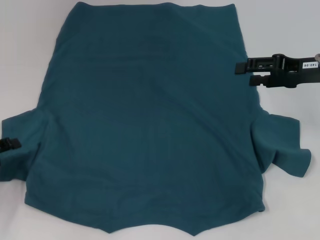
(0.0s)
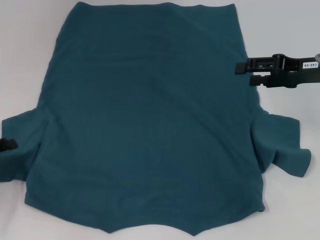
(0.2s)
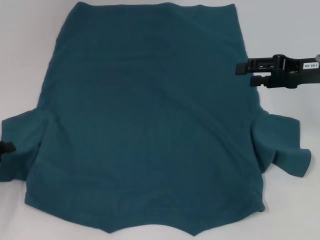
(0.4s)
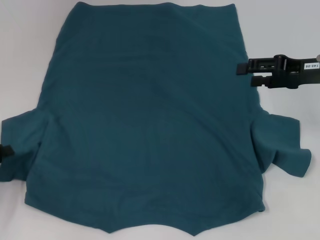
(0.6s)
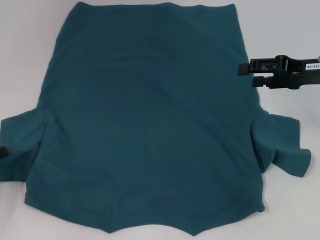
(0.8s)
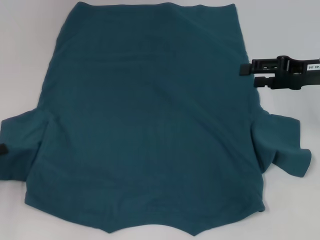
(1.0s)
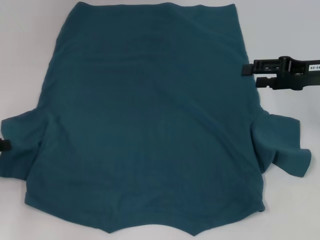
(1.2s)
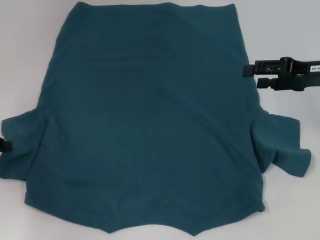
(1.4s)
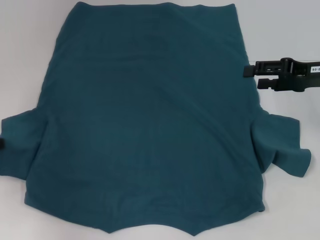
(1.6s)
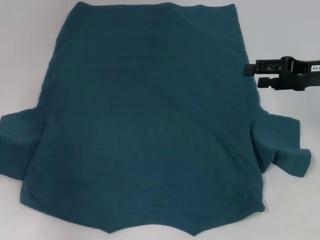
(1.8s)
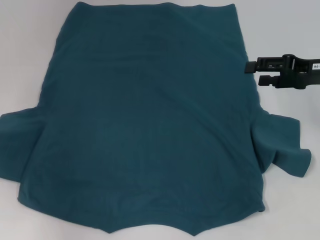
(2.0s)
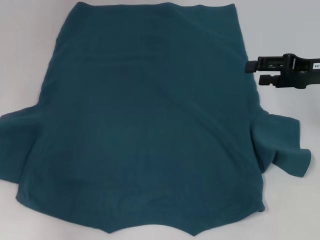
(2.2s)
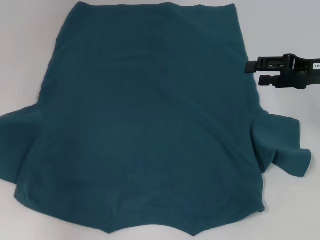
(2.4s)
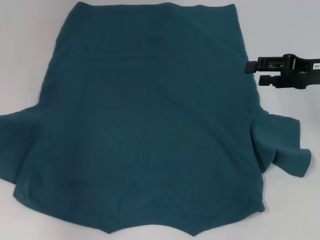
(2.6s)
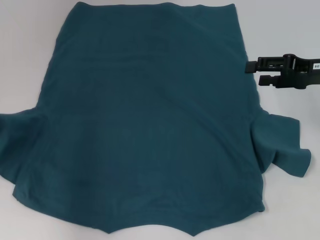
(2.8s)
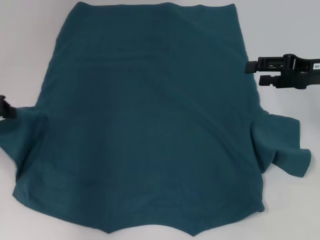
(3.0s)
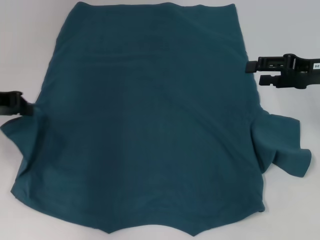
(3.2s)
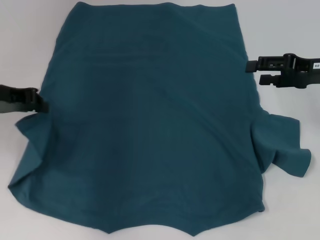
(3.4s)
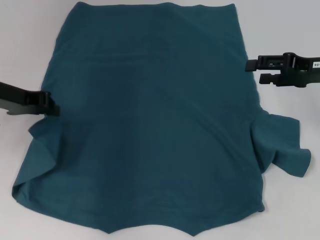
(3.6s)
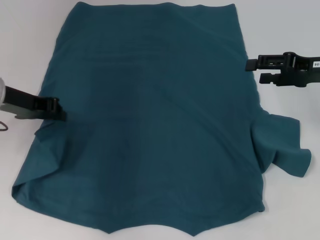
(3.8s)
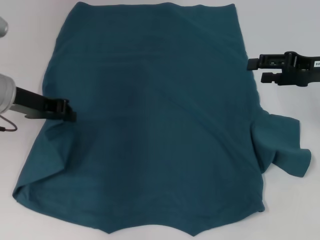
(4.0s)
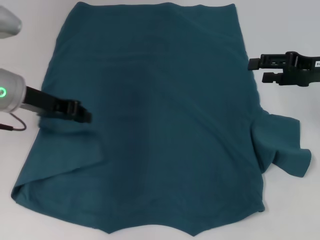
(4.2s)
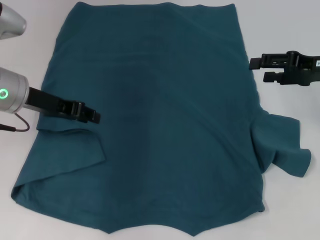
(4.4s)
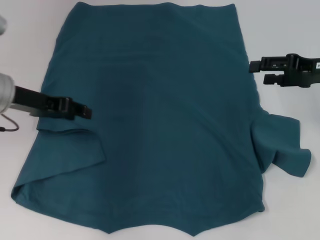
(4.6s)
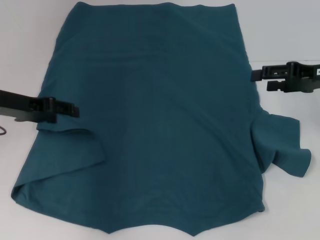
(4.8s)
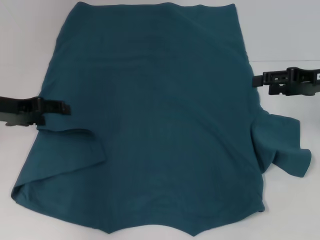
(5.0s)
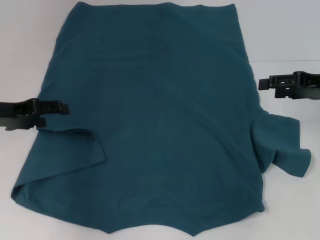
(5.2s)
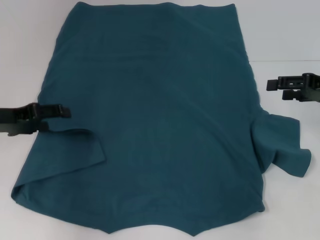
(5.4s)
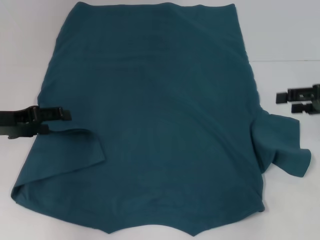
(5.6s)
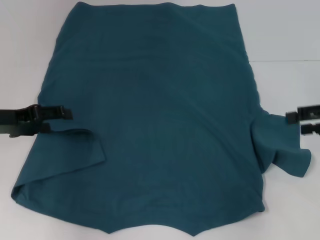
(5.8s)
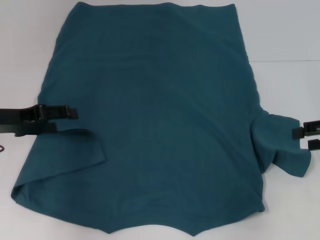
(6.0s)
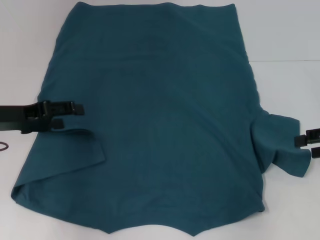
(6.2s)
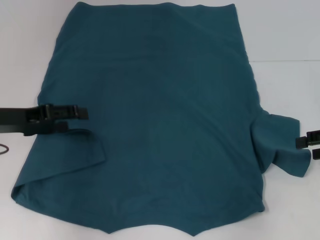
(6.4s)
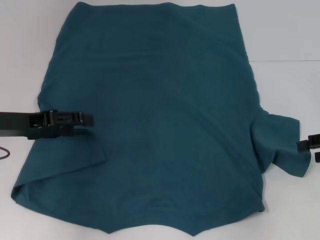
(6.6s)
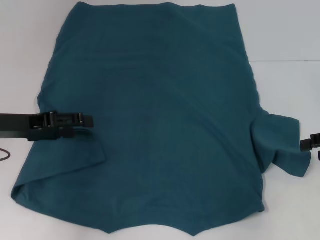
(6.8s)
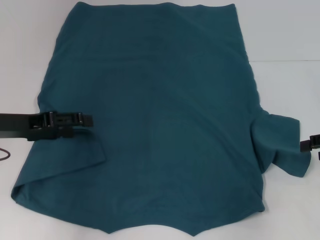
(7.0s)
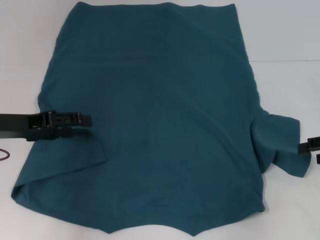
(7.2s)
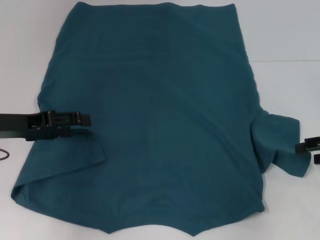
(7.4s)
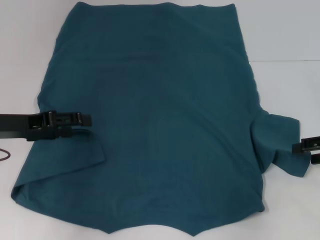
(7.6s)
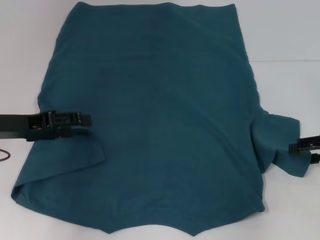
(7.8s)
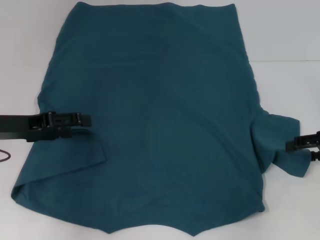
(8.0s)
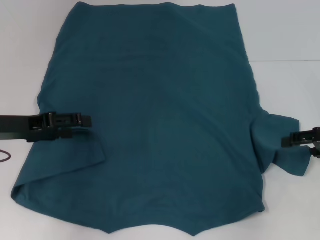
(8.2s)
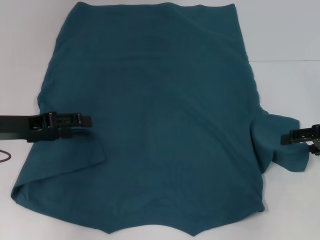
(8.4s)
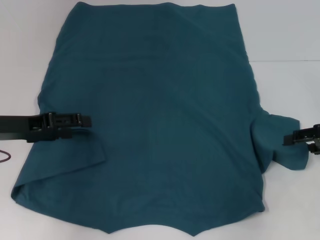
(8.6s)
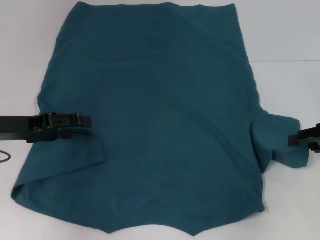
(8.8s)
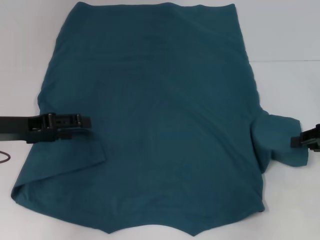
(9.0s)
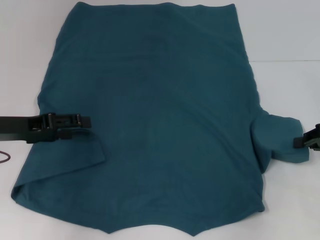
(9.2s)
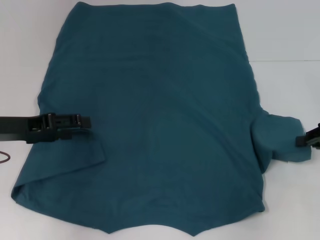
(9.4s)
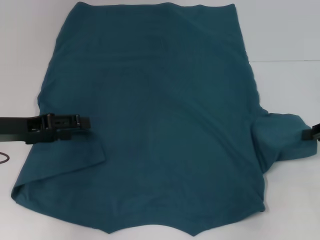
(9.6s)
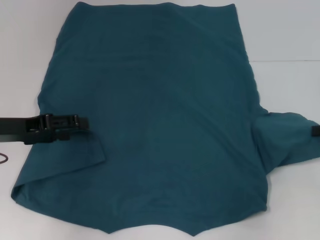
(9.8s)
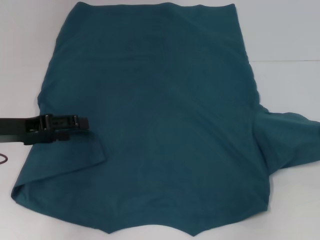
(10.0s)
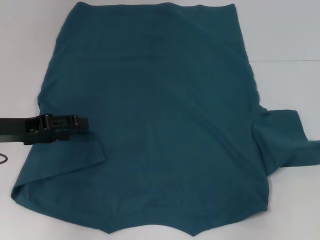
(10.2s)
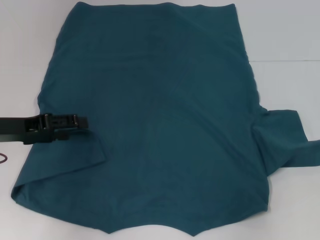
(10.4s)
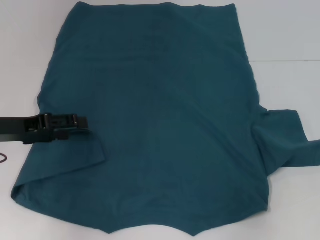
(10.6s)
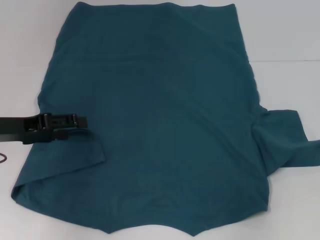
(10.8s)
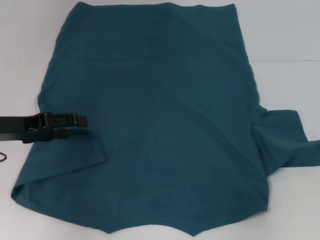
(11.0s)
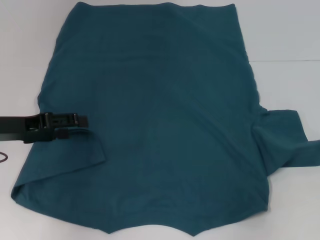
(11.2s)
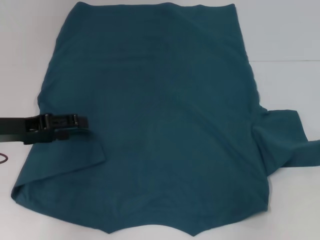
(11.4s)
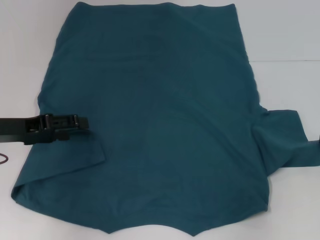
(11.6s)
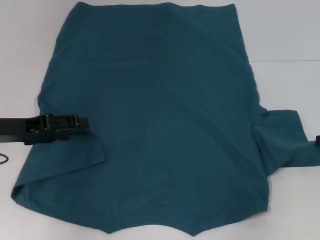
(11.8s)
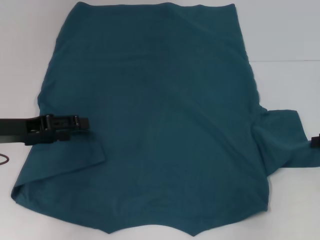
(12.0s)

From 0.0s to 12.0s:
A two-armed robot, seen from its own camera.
Step, from 0.0s to 5.2s: Fold the bottom left sleeve with your left hand.
From 0.0s to 1.6s: The left gripper is displaced upward and forward by some 10 cm, and closes its fingers.
From 1.6s to 3.0s: The left gripper shifts roughly 5 cm upward.
From 3.0s to 4.4s: The left gripper heads to the right, covering about 10 cm.
From 4.4s to 6.0s: The right gripper goes approximately 10 cm to the right and backward, while the left gripper heads to the left, covering some 5 cm, and opens.
From 6.0s to 9.0s: The grippers make only small movements.
From 9.0s to 10.4s: The right gripper changes place by roughly 5 cm, and closes up.

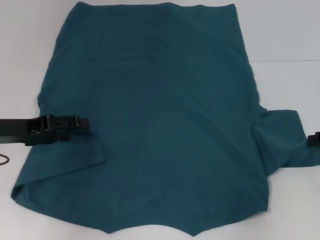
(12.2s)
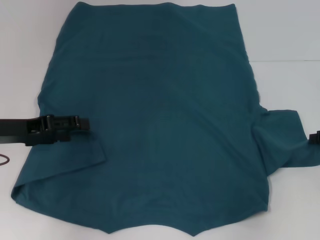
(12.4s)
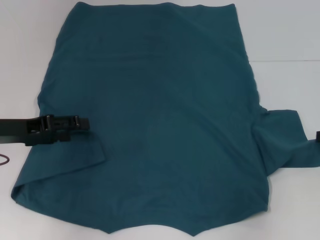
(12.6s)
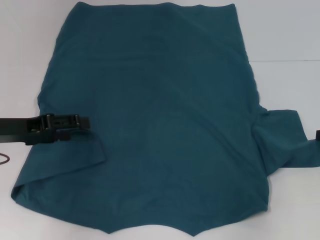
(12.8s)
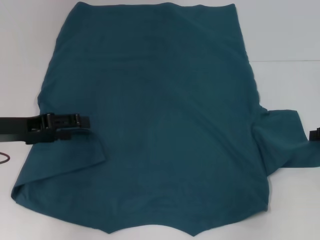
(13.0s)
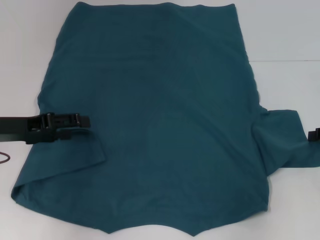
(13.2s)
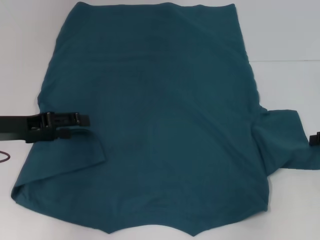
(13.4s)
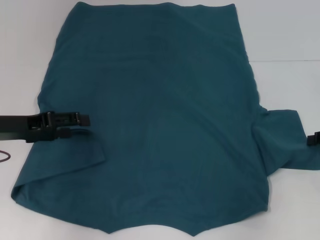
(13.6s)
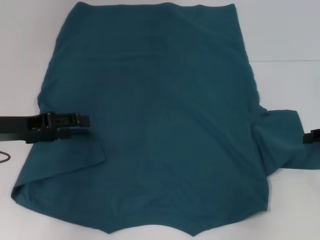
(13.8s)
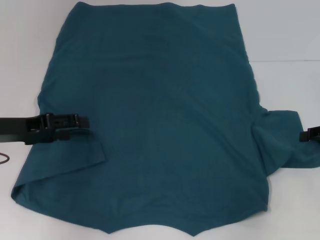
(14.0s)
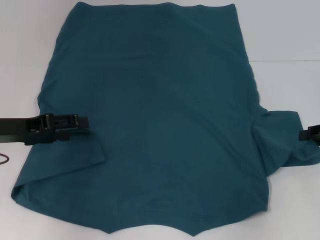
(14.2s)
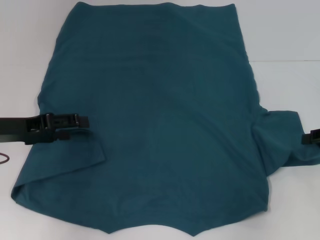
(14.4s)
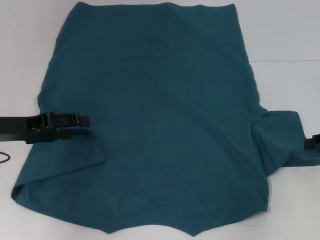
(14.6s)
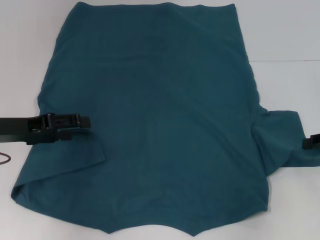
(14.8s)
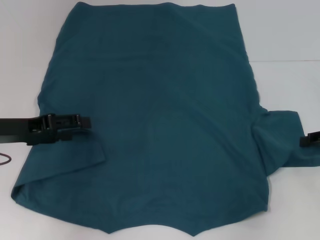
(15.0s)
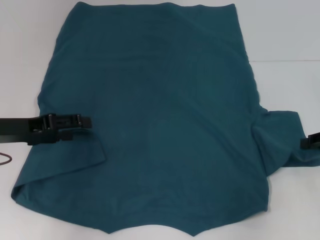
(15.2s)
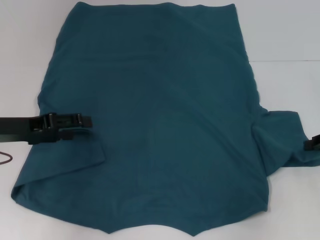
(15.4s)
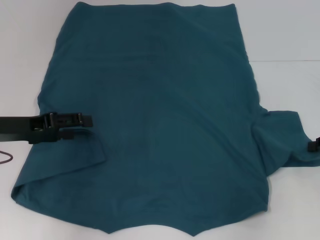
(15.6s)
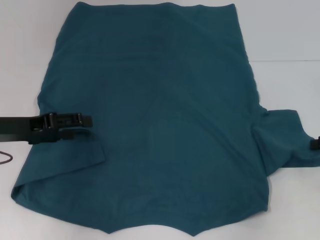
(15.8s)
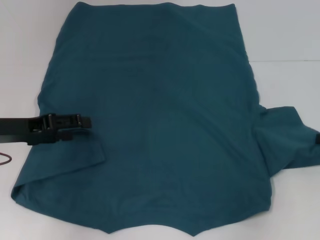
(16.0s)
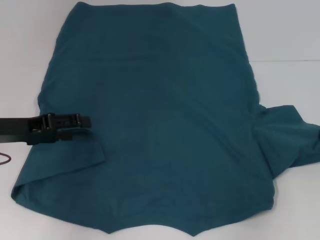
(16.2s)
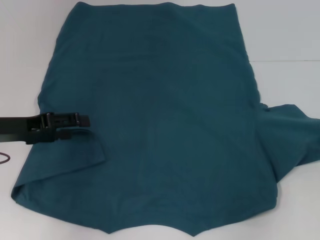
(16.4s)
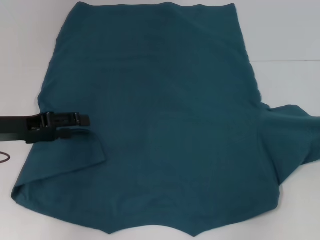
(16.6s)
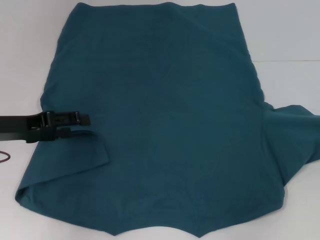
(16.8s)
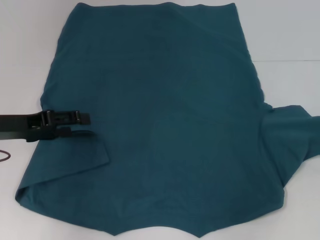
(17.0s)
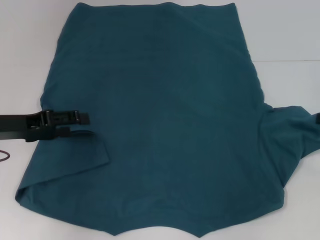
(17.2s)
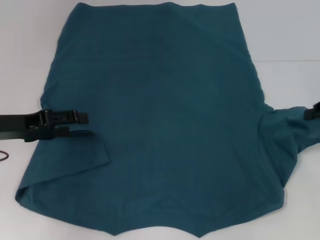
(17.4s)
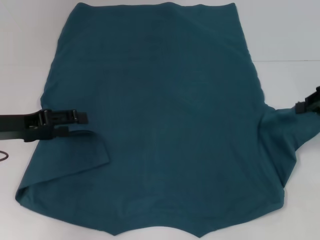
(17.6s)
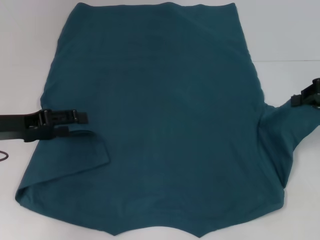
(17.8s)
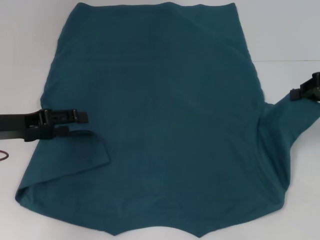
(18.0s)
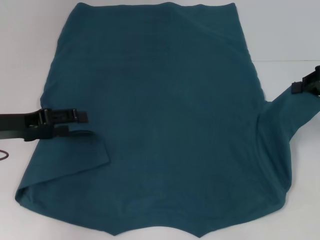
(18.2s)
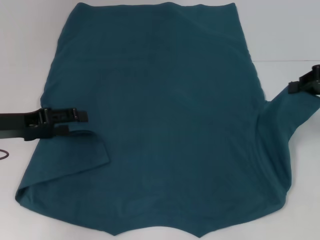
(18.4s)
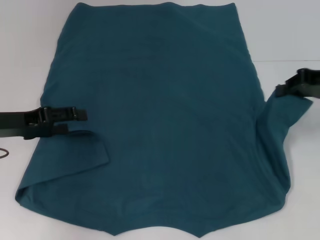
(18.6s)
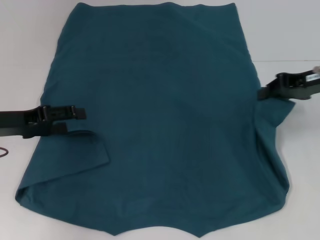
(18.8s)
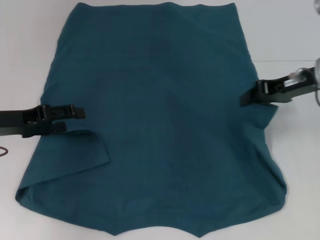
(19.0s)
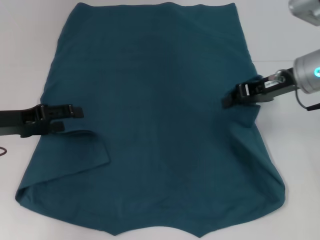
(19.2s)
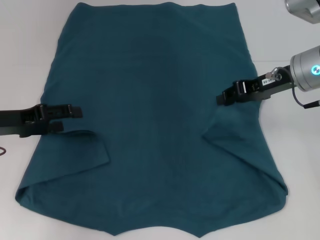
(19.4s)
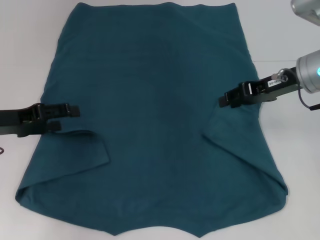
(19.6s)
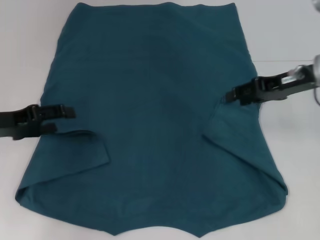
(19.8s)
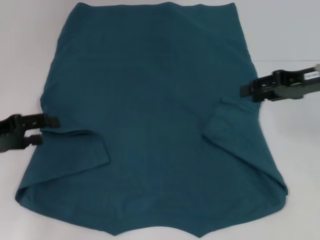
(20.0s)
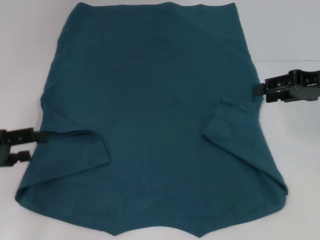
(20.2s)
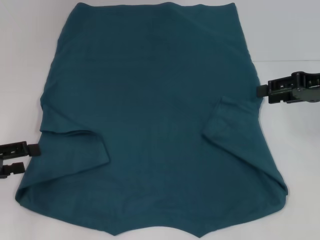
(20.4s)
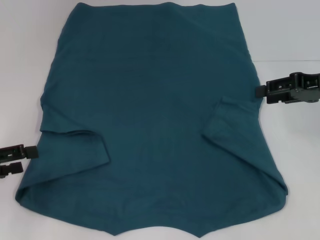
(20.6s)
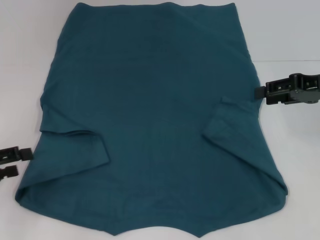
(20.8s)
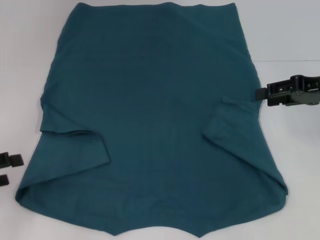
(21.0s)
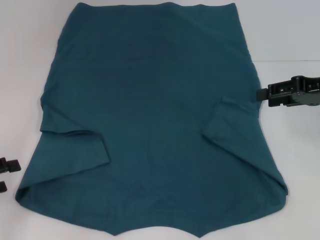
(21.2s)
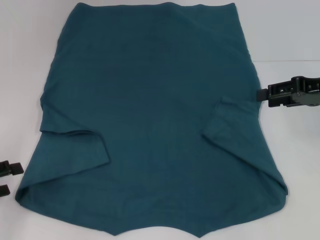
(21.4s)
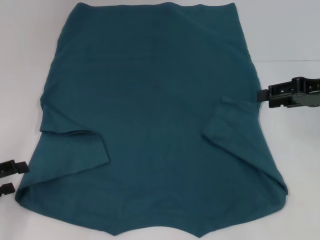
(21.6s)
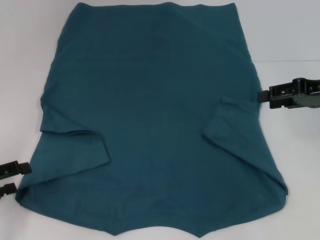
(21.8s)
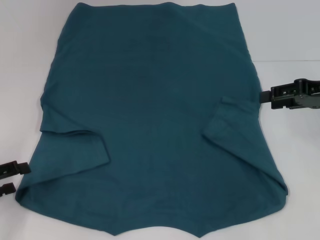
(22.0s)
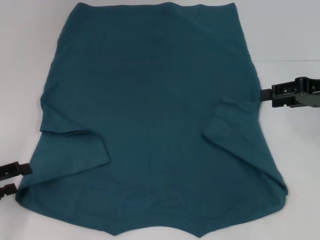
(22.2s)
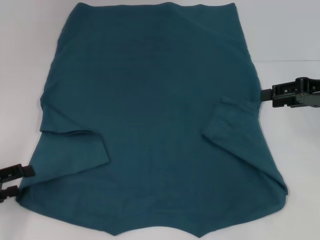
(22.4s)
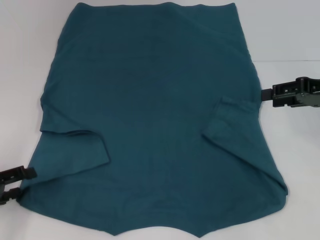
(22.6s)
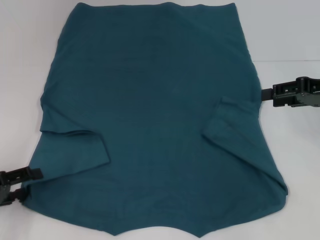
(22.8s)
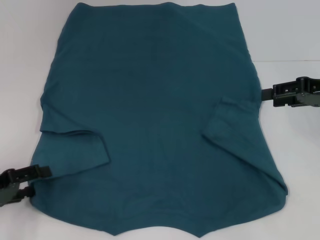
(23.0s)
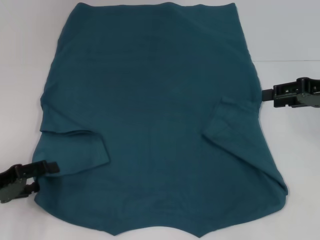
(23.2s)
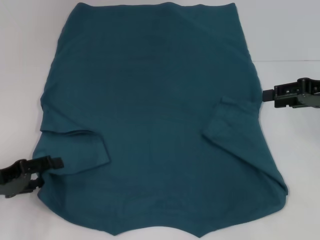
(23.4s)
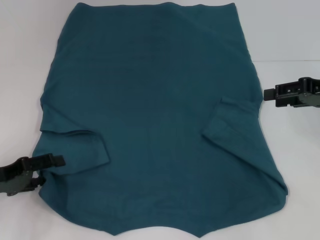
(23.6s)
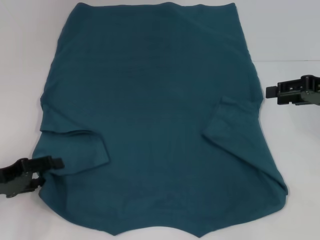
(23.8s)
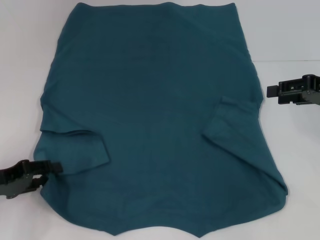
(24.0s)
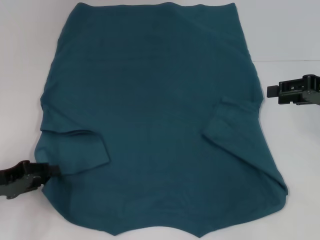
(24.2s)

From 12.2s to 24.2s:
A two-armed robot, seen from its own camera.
Step, from 12.2s to 19.8s: Fold the bottom right sleeve to the right.
From 12.2s to 13.8s: Both grippers stay about where they are.
From 13.8s to 15.2s: There are only small adjustments of the grippers.
From 15.2s to 16.6s: The right gripper closes.
From 16.6s to 18.2s: The right gripper travels upward and to the left by roughly 10 cm.
From 18.2s to 19.8s: The right gripper shifts approximately 10 cm to the left, and opens its fingers.
From 19.8s to 21.2s: The left gripper heads backward and to the left, covering some 10 cm. The right gripper moves to the right, roughly 5 cm.
From 21.2s to 22.6s: The grippers move only a little.
From 22.6s to 24.2s: The grippers stay close to where they were, moving slightly.
